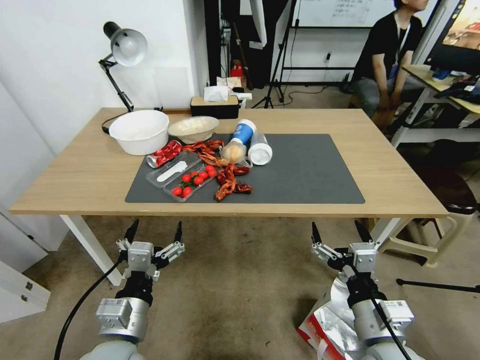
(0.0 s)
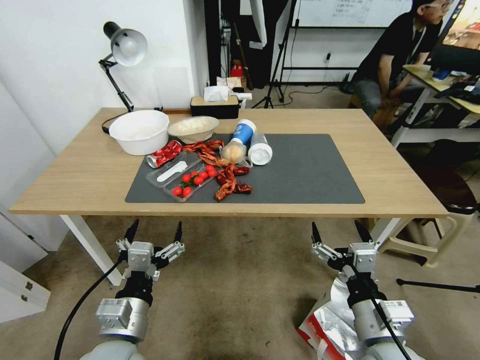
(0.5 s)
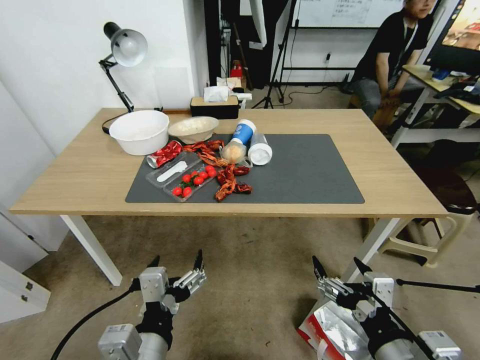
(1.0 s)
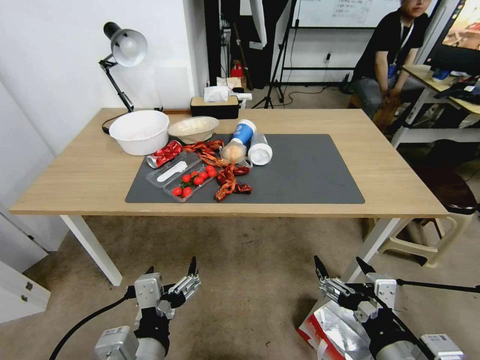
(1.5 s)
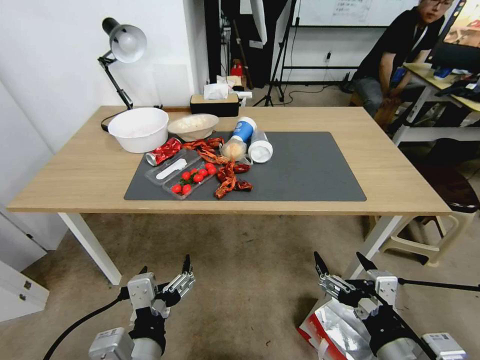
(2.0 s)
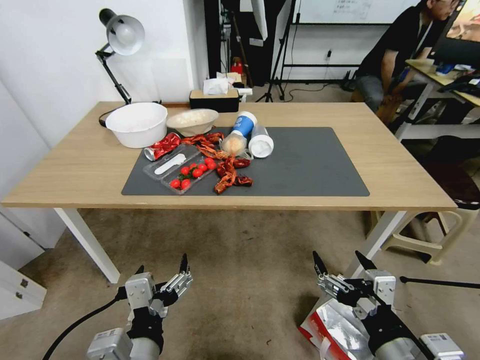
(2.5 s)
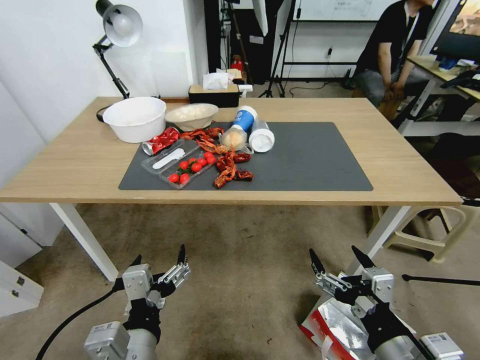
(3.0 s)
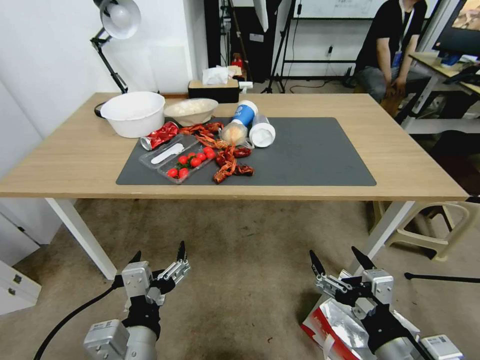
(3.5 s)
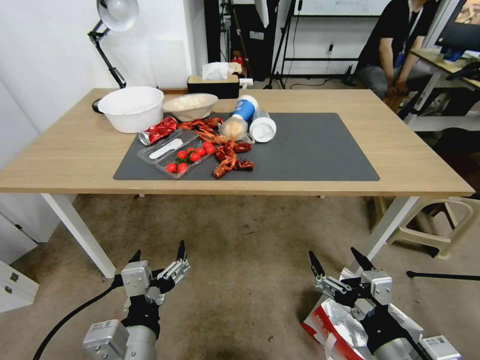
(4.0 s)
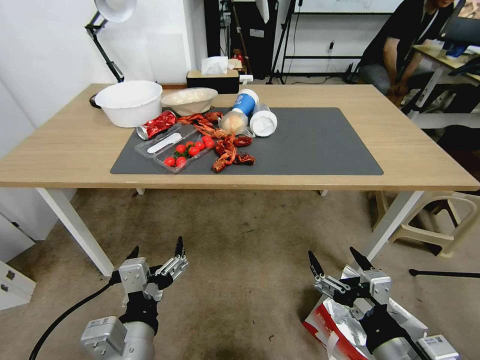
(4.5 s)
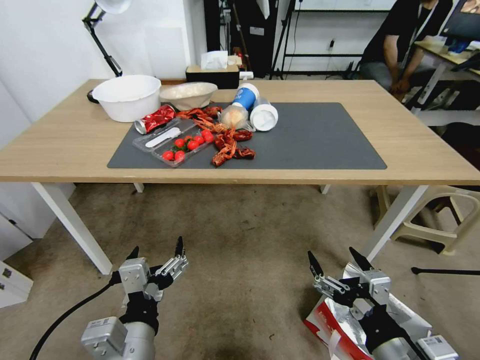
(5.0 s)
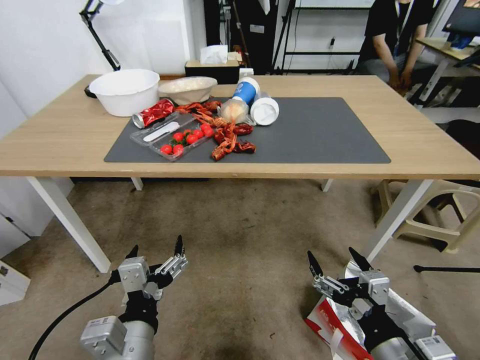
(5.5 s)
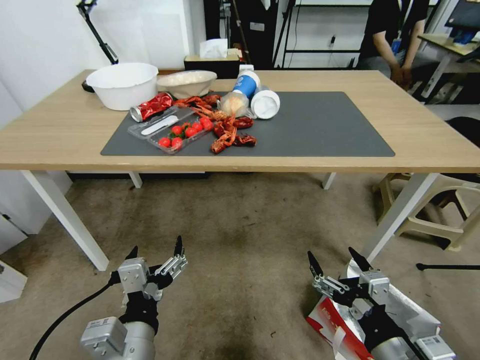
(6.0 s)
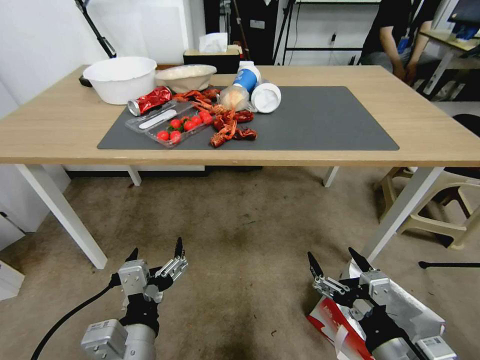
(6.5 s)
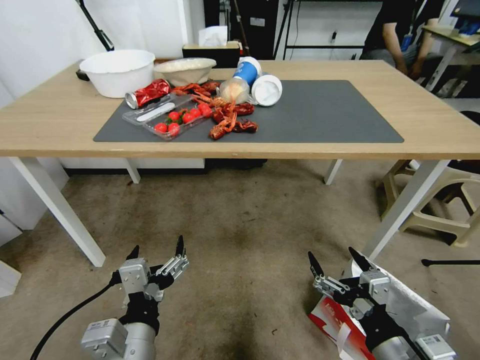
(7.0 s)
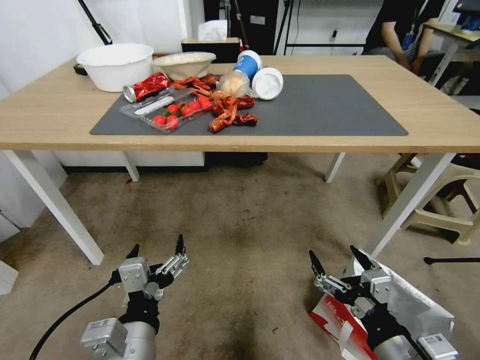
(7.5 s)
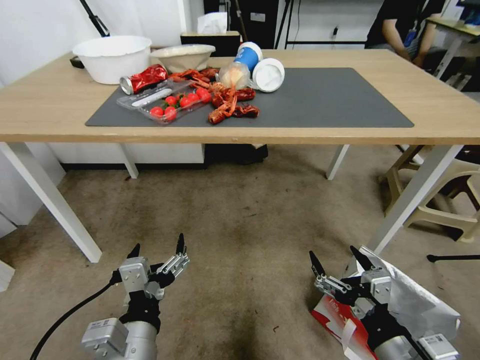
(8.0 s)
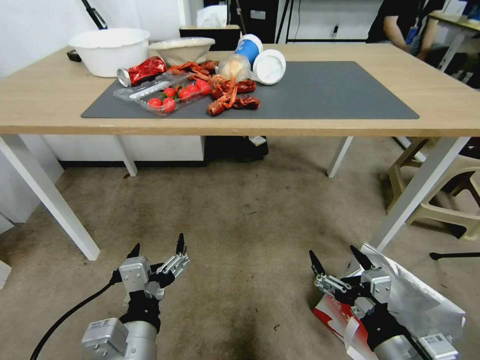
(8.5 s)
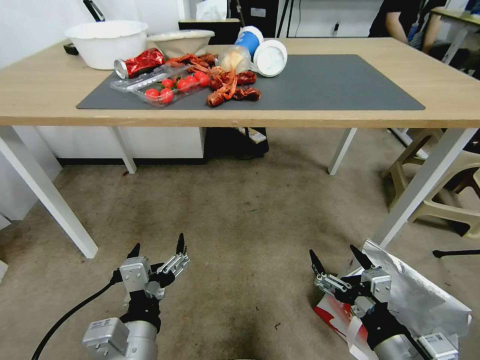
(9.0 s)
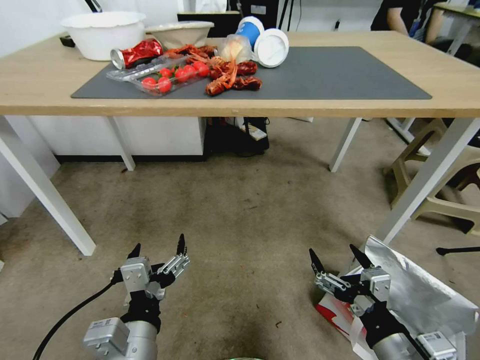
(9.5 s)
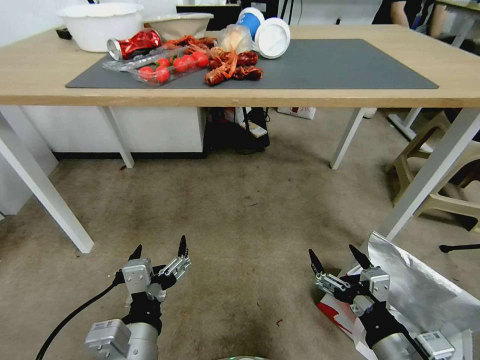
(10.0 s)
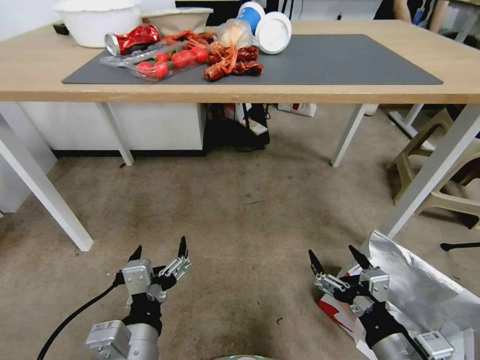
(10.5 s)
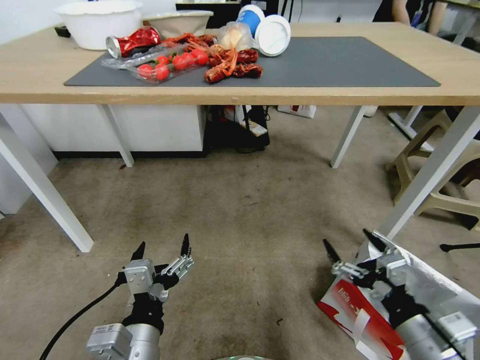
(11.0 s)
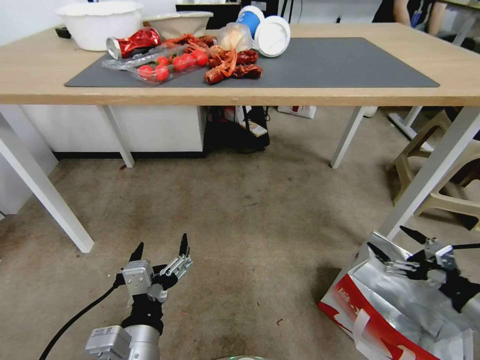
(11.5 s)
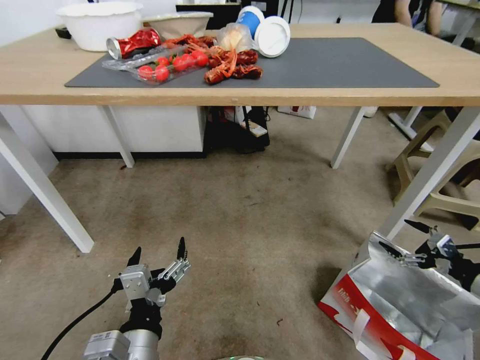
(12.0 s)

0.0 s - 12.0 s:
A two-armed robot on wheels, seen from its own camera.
Task of the whole recording: Pick up the food delivery bag from the floor and place it on the table.
10.0 s - 12.0 s: The right gripper goes some 35 cm to the right and forward.

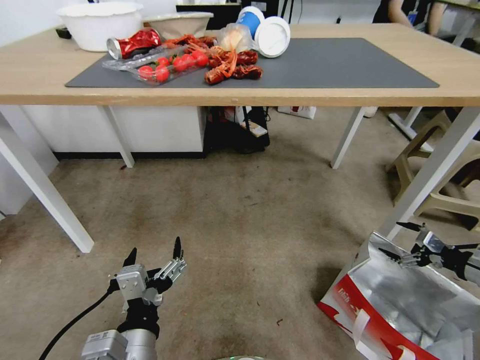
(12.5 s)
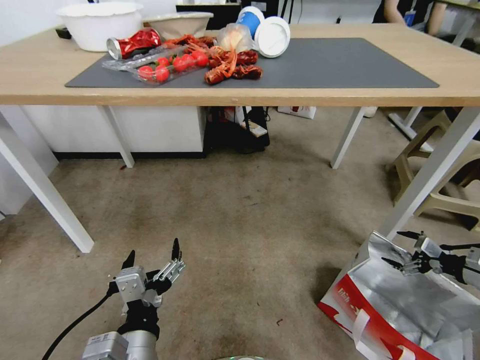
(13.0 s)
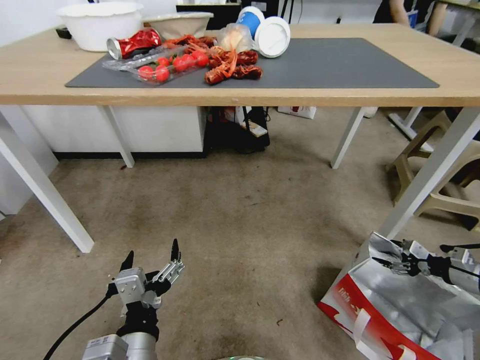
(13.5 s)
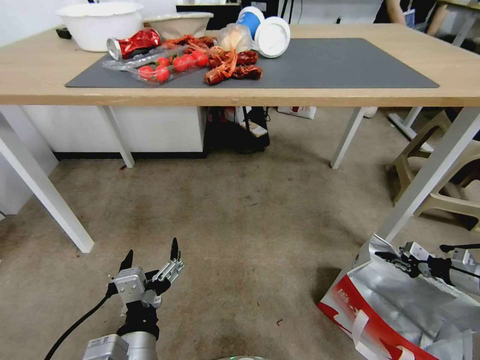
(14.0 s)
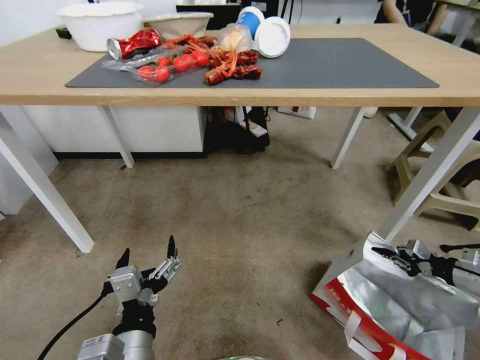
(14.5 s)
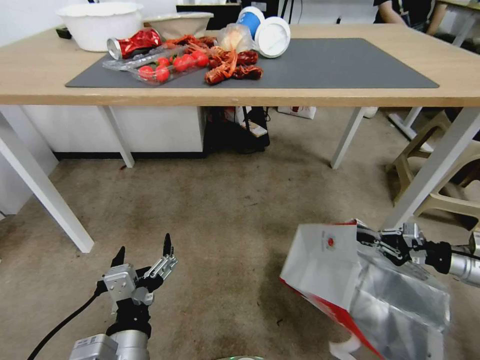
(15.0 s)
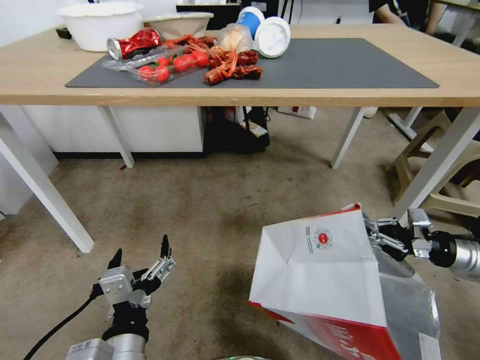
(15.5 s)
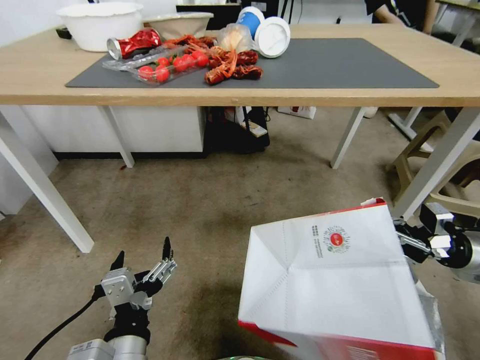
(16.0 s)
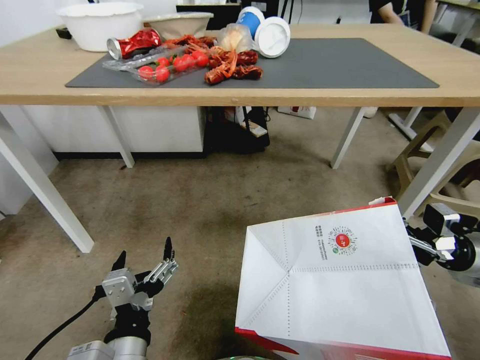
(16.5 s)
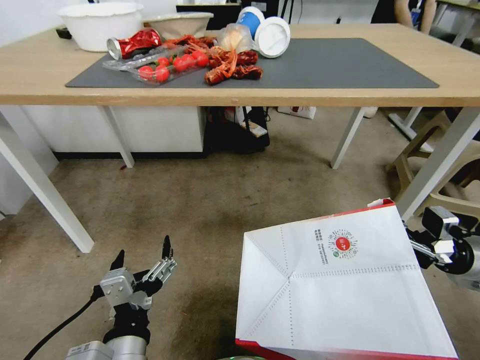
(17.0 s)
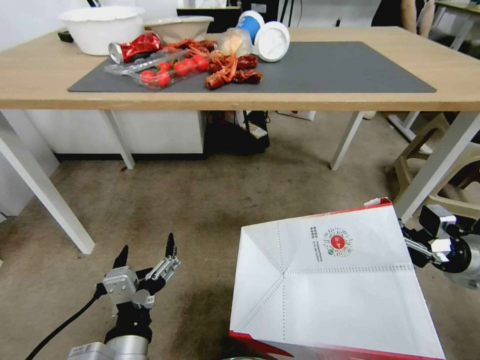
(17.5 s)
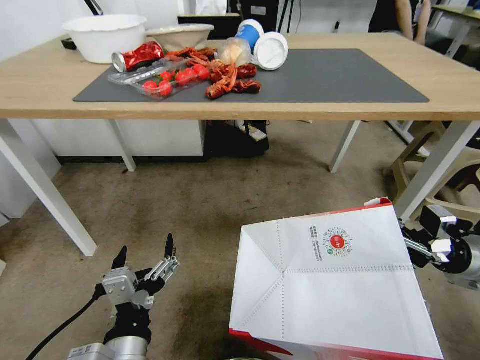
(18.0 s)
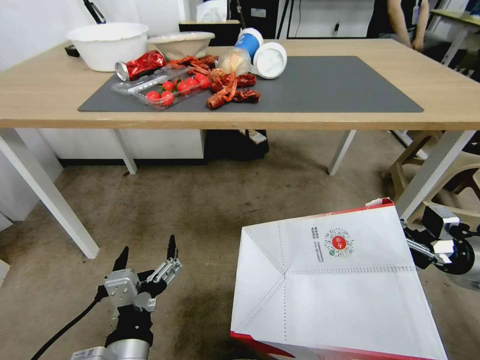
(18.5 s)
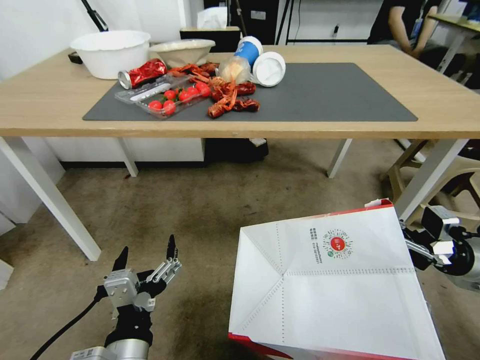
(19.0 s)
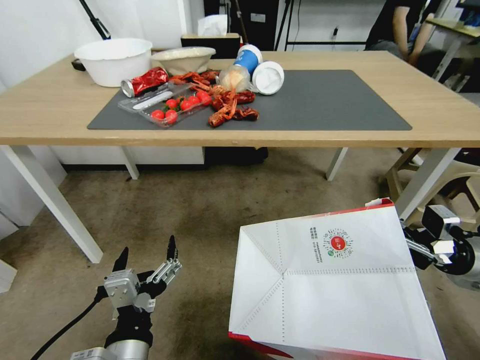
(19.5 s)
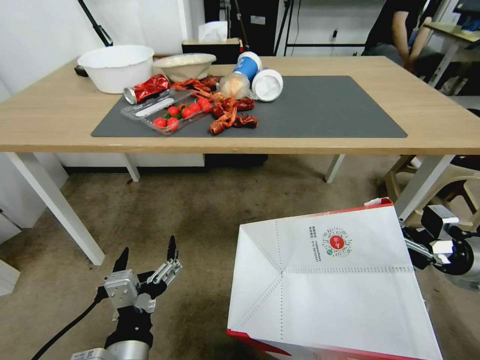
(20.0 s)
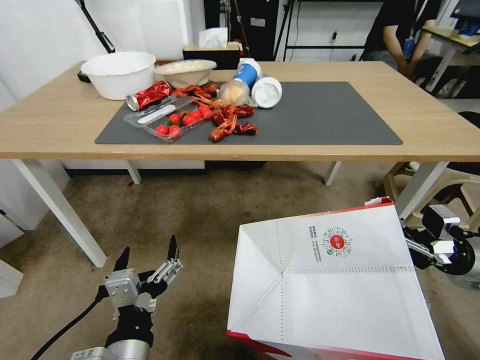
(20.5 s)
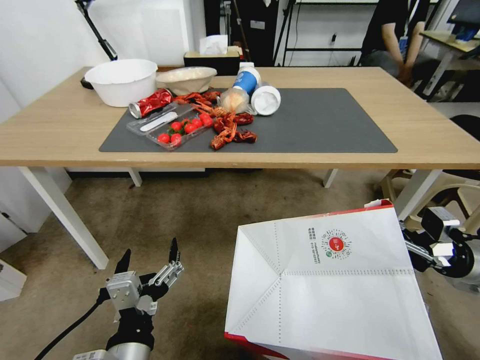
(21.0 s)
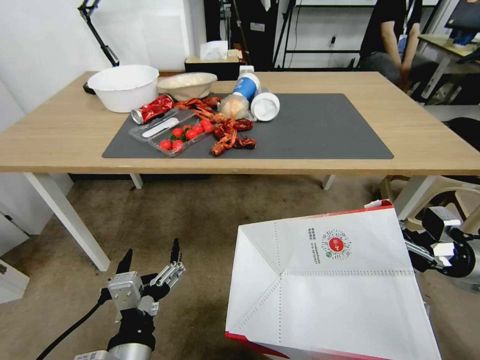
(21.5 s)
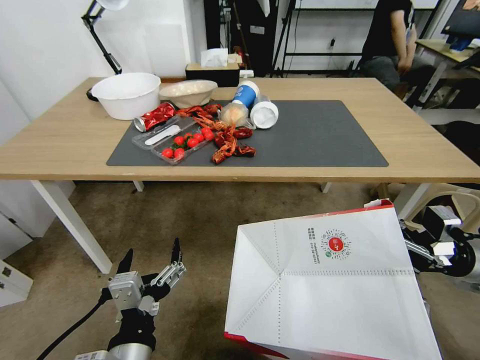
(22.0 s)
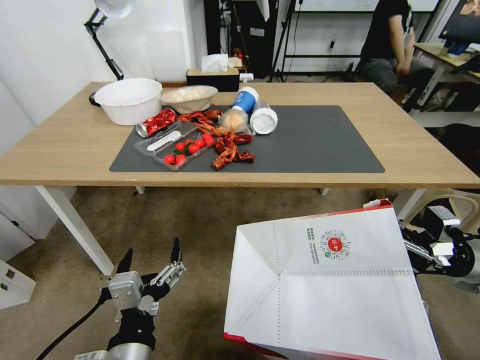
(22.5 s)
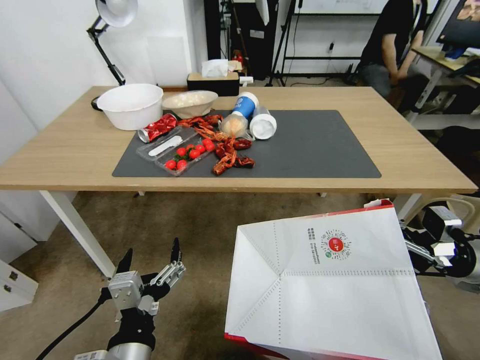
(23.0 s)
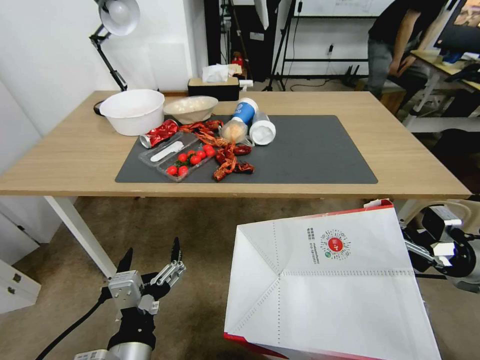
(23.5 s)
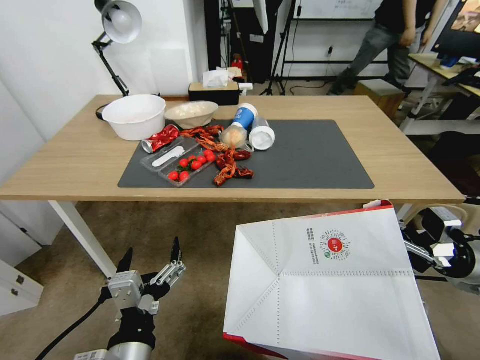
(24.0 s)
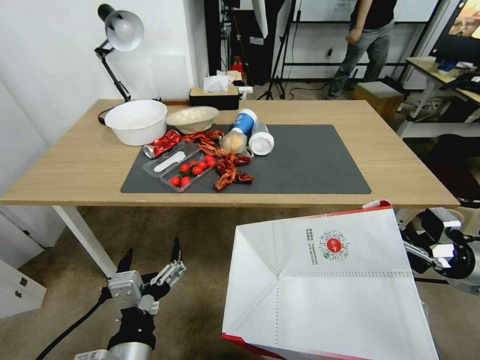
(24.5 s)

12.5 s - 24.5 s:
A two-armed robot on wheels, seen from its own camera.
Task of the whole recording: Pick up the food delivery bag from the floor and place it on the table.
12.5 s - 14.5 s: The right gripper shifts by approximately 5 cm, and closes its fingers.
14.5 s - 16.5 s: The right gripper shifts about 15 cm to the left and upward.

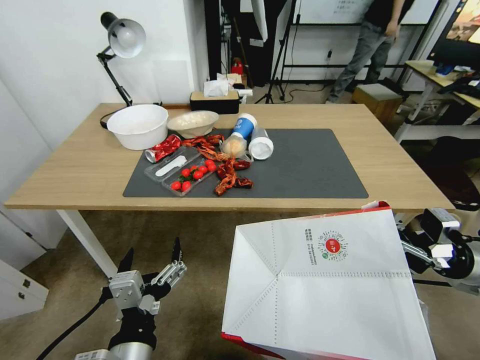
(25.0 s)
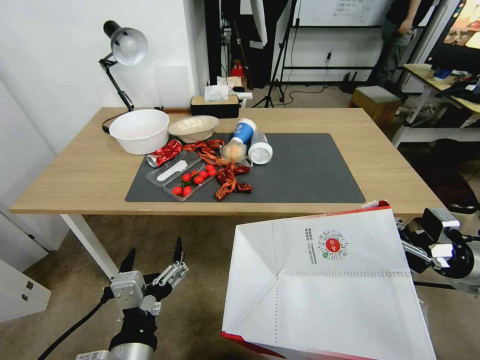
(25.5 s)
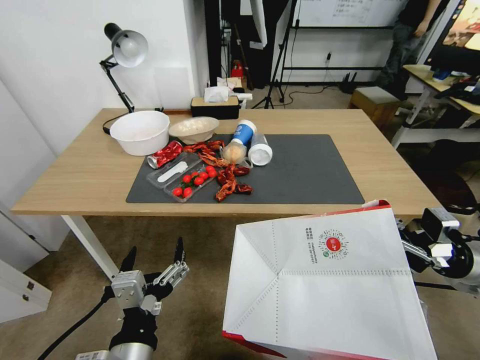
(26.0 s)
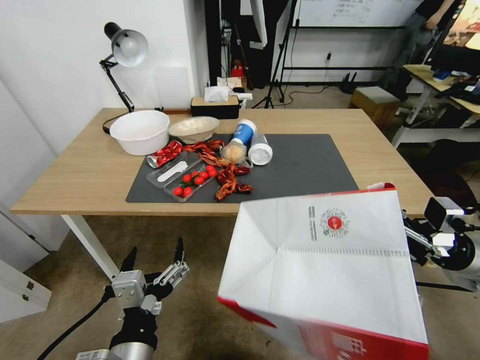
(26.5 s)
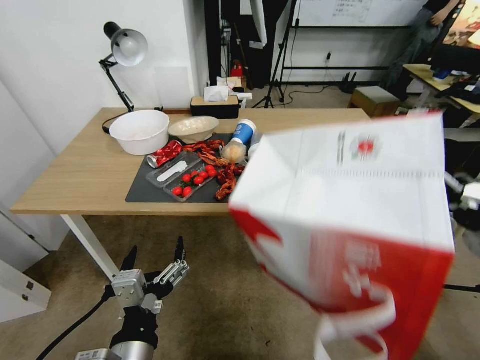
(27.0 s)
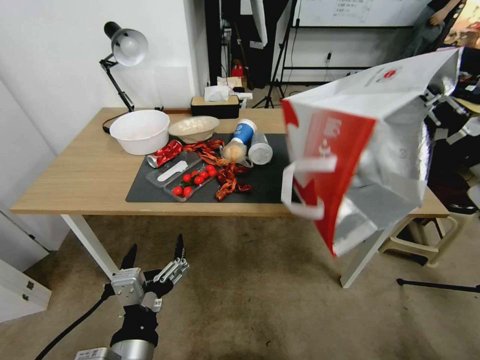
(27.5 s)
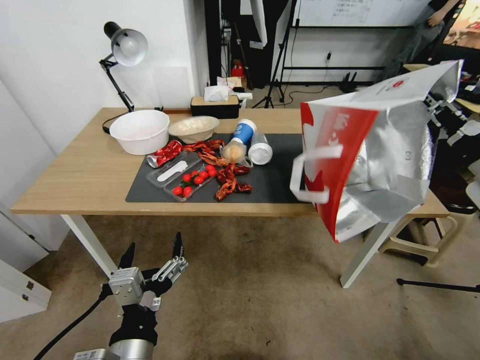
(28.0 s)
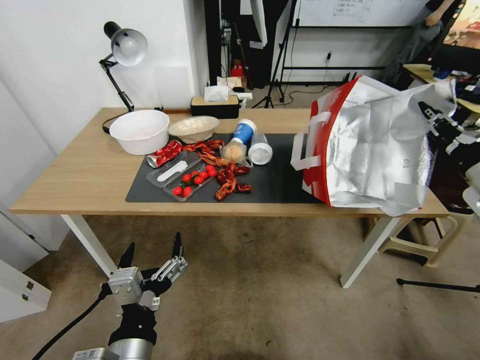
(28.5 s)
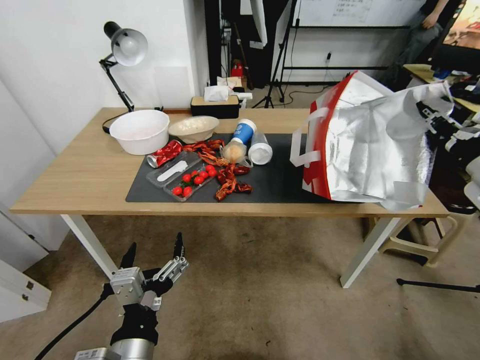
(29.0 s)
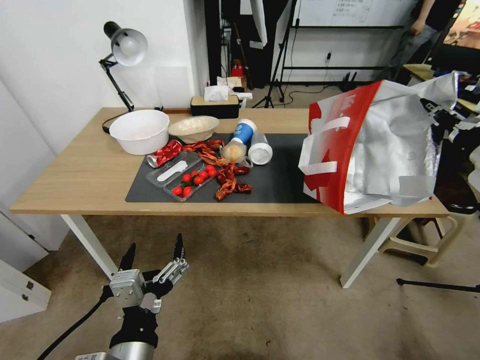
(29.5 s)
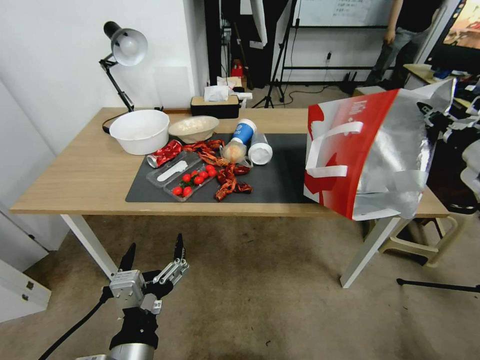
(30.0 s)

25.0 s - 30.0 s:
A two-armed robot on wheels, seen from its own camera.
Task of the whole recording: Pick up the food delivery bag from the floor and place it on the table.
25.0 s - 27.5 s: The right gripper shifts approximately 15 cm upward.
27.5 s - 30.0 s: The right gripper goes about 5 cm forward.
